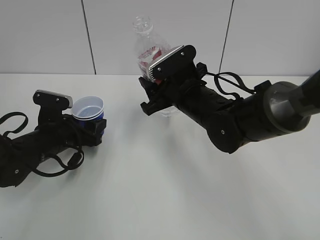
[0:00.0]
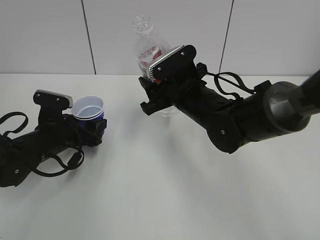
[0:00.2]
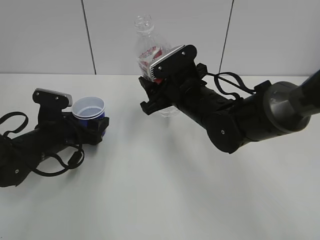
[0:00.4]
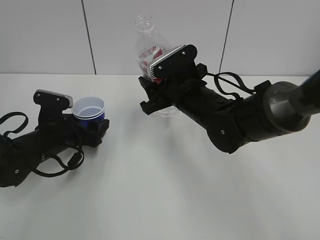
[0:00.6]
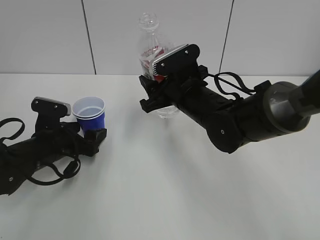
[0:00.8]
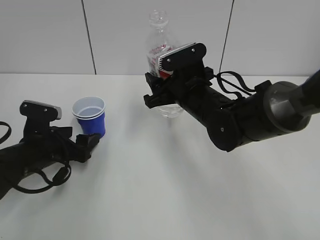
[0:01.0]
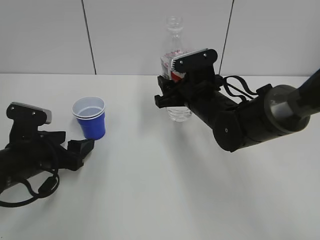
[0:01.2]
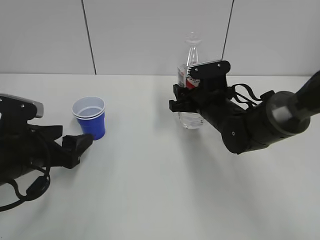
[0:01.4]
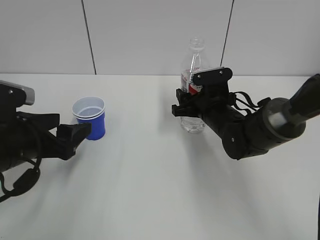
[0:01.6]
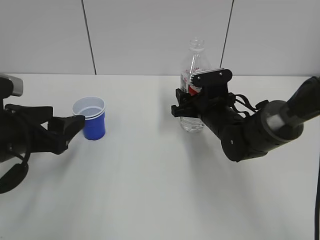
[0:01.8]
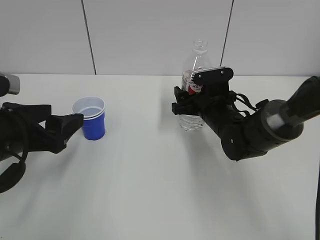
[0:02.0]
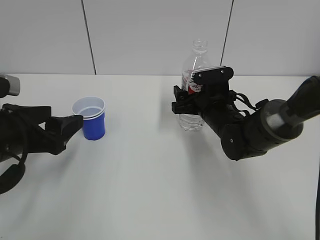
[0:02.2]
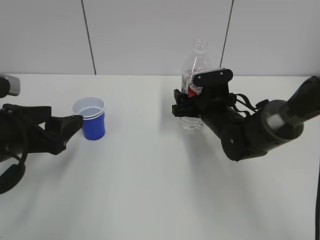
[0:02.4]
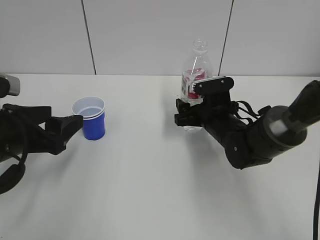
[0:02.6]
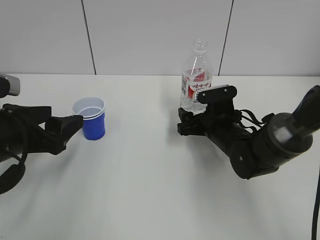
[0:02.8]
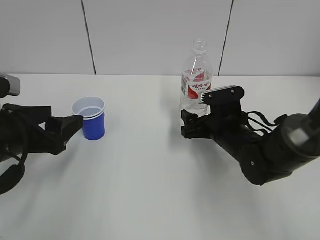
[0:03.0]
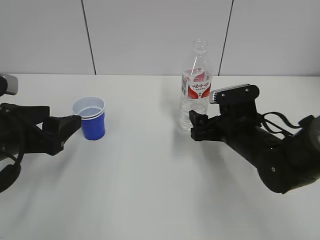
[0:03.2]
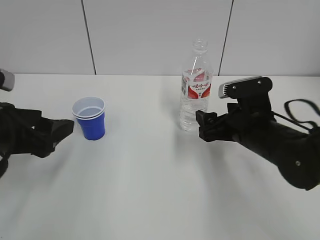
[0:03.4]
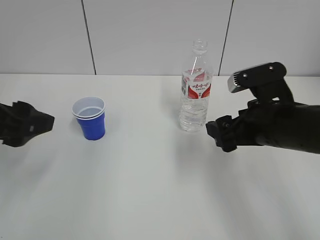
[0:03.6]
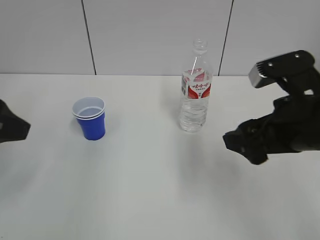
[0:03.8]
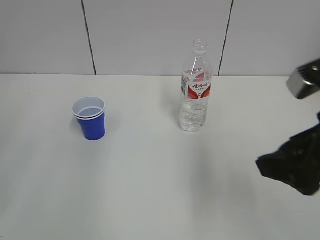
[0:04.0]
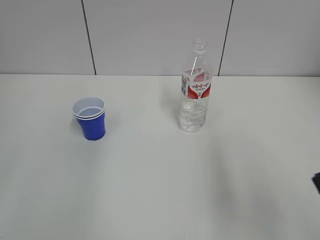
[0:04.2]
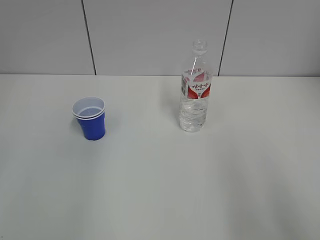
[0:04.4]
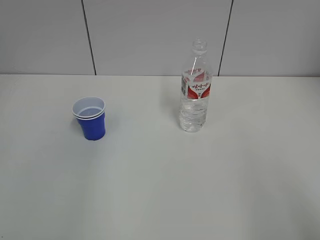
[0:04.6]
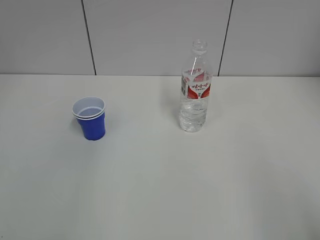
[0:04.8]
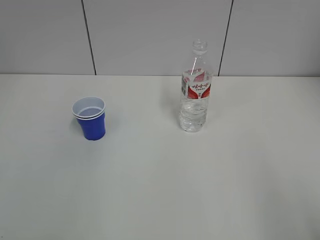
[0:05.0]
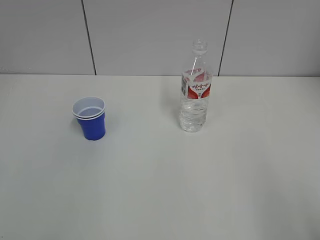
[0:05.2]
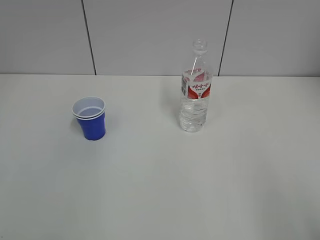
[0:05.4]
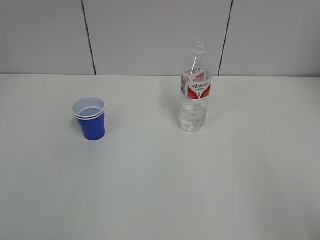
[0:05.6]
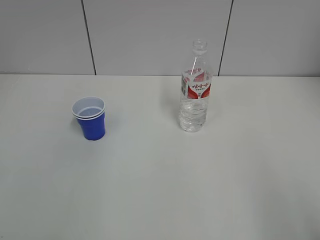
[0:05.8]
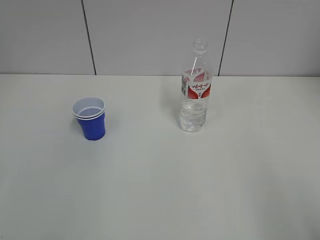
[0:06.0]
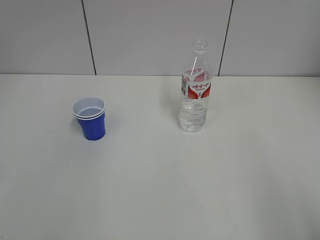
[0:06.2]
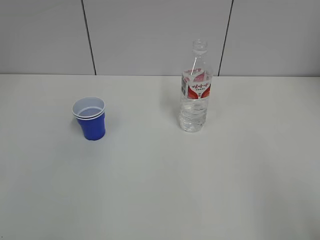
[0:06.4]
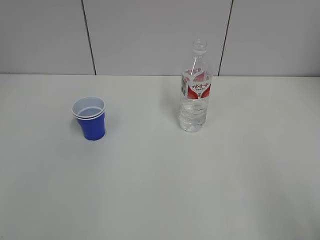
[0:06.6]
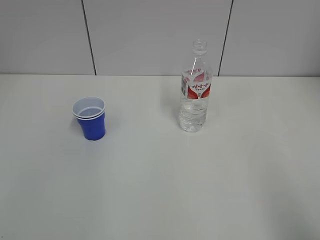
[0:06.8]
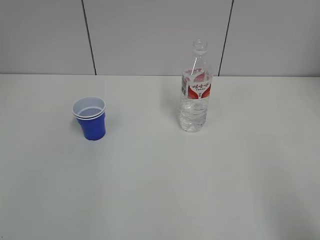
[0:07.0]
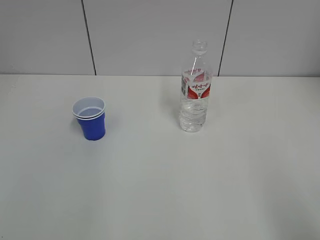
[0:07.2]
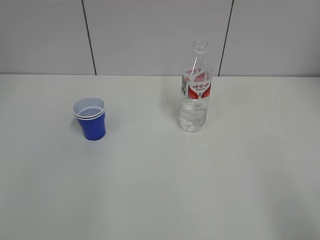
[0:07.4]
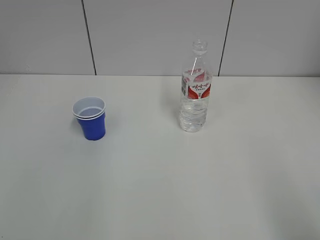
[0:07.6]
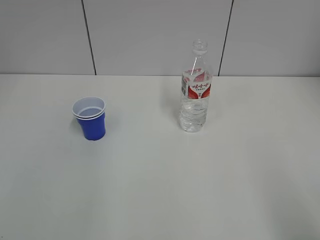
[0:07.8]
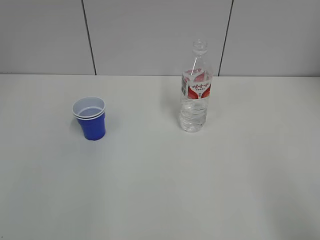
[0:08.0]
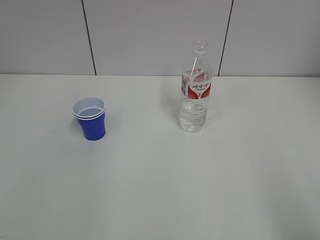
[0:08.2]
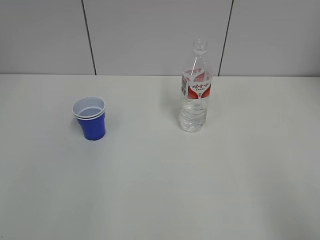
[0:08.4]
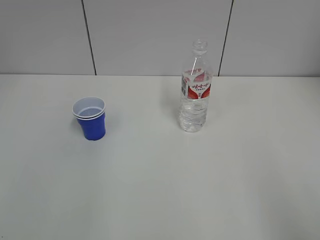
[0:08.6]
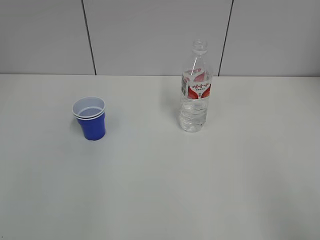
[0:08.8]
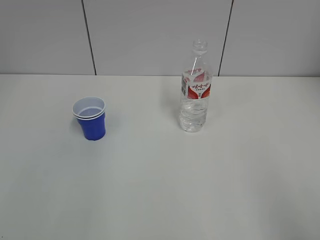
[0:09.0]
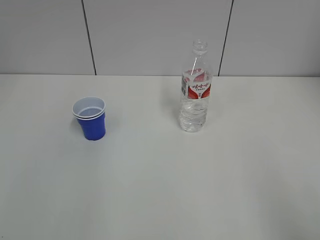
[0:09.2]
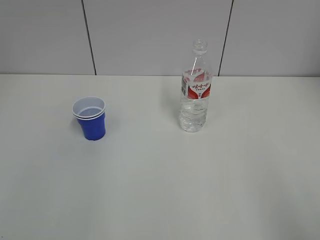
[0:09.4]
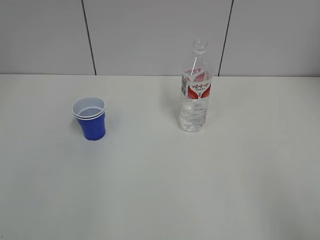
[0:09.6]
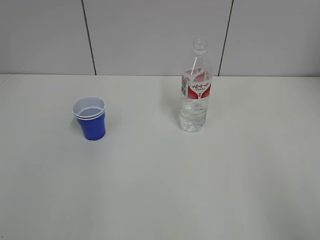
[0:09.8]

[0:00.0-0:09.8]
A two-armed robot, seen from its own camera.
Step, 0:00.8 to 0:01.4: Collect water with the right hand.
Step, 0:01.6 to 0:02.2: Place the water bottle with the right hand.
0:00.0 to 0:01.4: The right gripper goes approximately 5 cm to the right. The left gripper heads backward and upward, covering some 10 cm, and opens up.
0:01.4 to 0:02.8: The right gripper shifts by some 5 cm, and opens its fingers, while the left gripper is displaced upward by approximately 5 cm.
0:02.8 to 0:04.2: The right gripper goes some 35 cm backward, upward and to the right, while the left gripper travels upward and backward by some 20 cm.
0:07.0 to 0:08.4: Both grippers stay put.
0:08.4 to 0:09.8: Both grippers stay put.

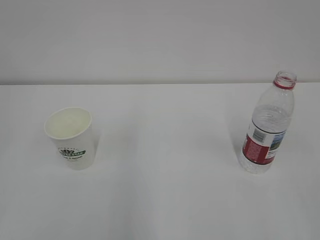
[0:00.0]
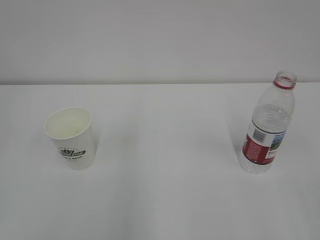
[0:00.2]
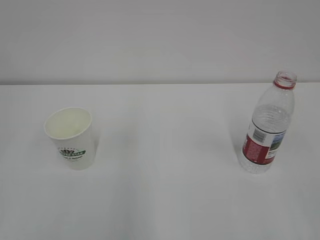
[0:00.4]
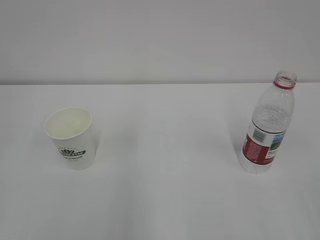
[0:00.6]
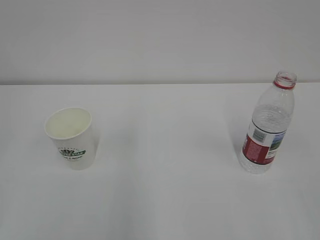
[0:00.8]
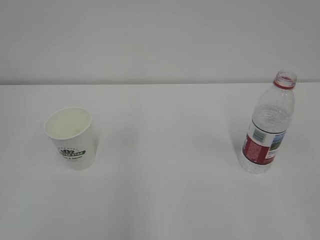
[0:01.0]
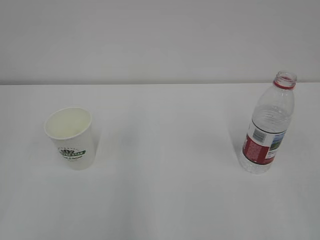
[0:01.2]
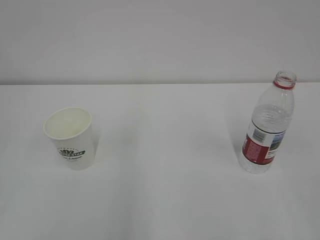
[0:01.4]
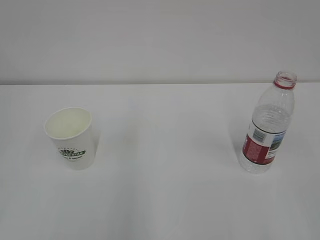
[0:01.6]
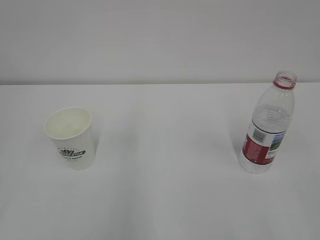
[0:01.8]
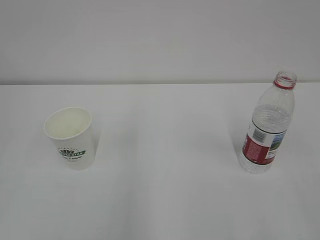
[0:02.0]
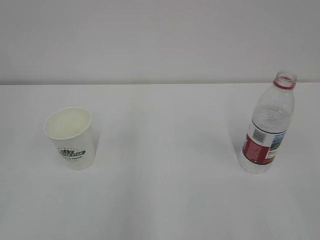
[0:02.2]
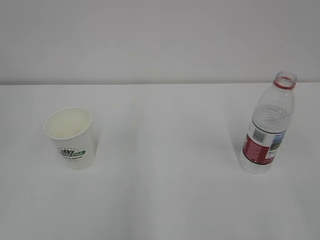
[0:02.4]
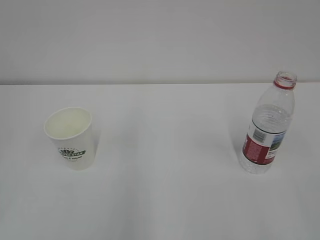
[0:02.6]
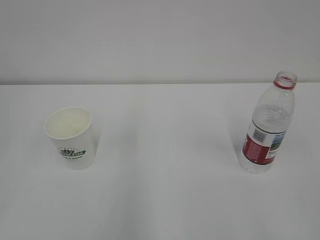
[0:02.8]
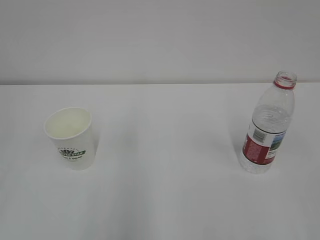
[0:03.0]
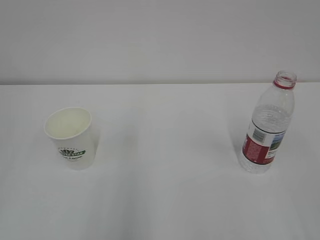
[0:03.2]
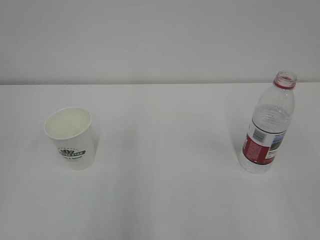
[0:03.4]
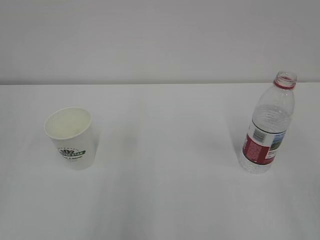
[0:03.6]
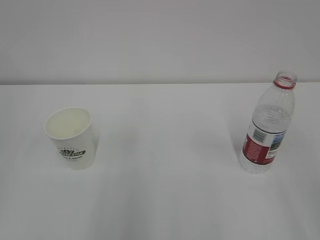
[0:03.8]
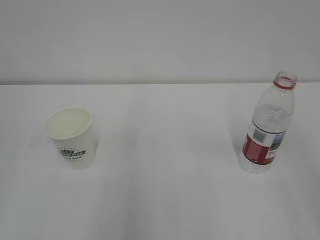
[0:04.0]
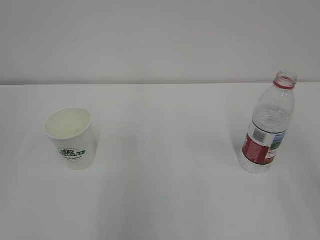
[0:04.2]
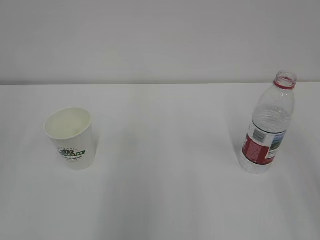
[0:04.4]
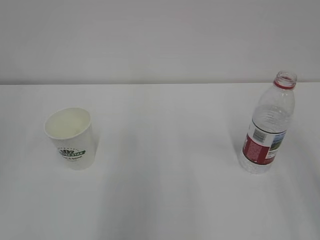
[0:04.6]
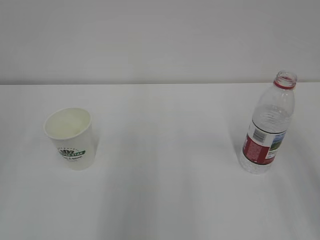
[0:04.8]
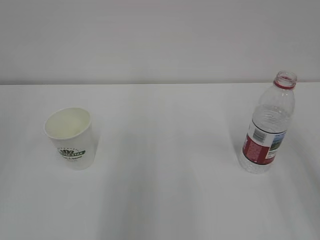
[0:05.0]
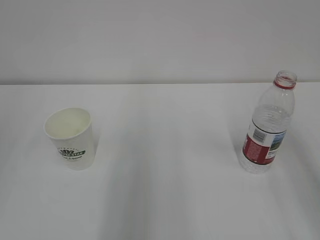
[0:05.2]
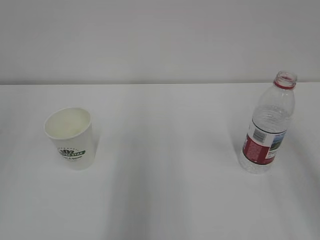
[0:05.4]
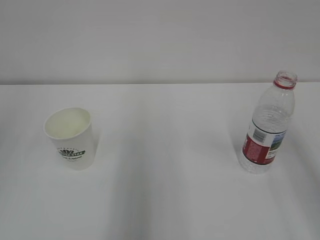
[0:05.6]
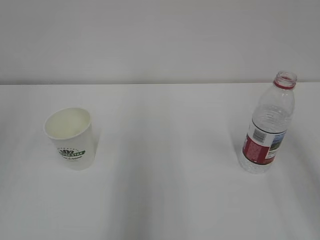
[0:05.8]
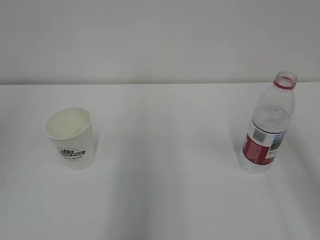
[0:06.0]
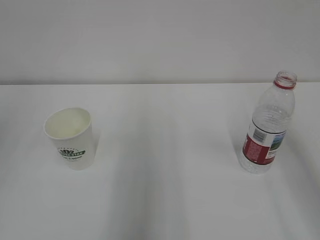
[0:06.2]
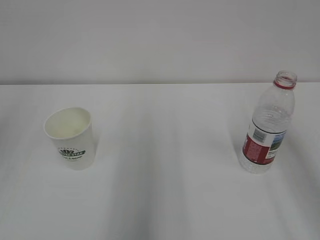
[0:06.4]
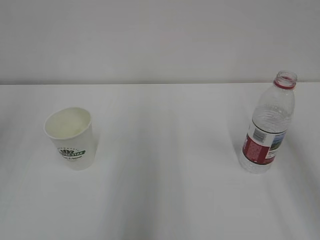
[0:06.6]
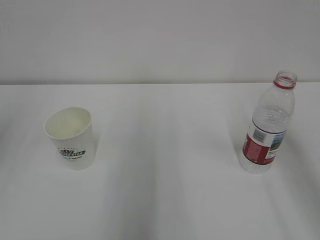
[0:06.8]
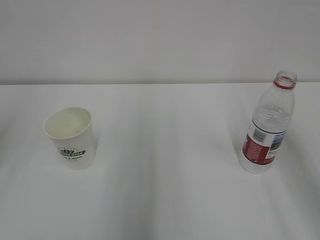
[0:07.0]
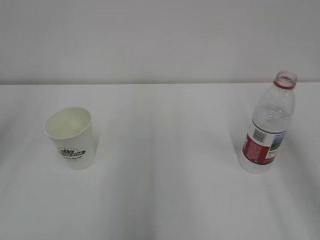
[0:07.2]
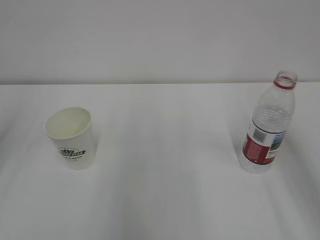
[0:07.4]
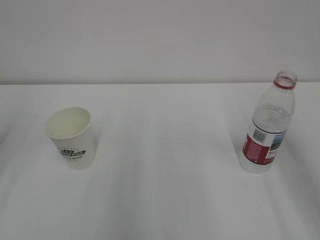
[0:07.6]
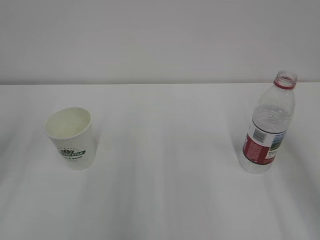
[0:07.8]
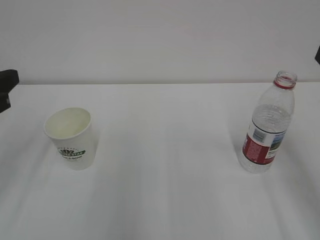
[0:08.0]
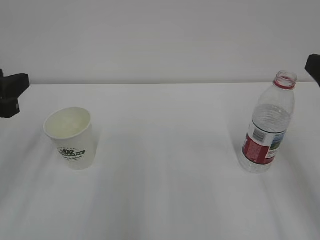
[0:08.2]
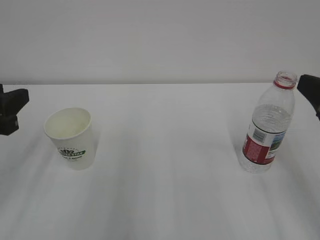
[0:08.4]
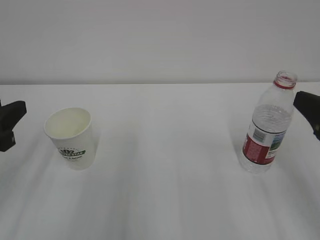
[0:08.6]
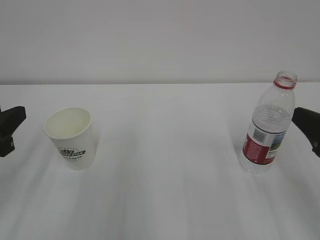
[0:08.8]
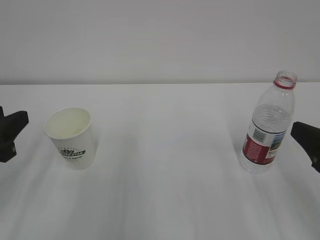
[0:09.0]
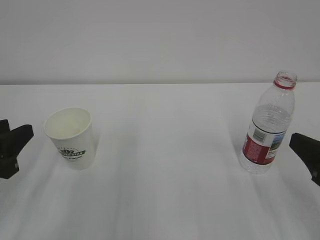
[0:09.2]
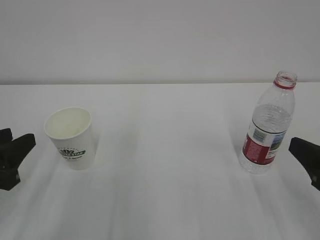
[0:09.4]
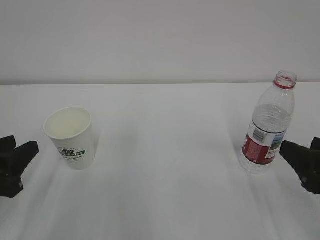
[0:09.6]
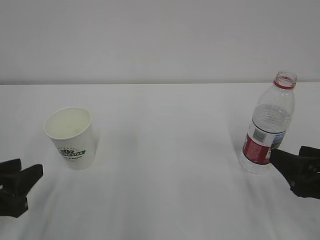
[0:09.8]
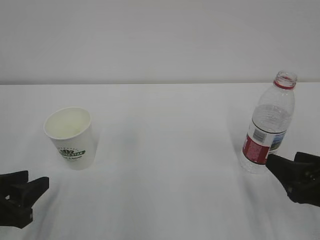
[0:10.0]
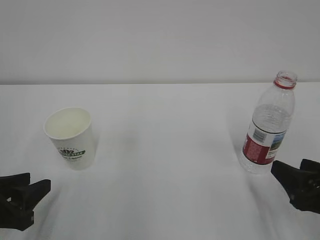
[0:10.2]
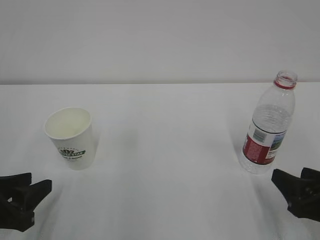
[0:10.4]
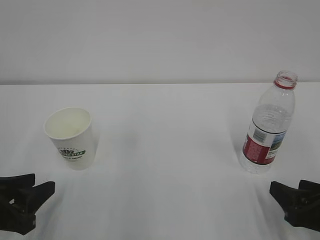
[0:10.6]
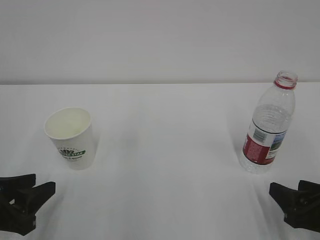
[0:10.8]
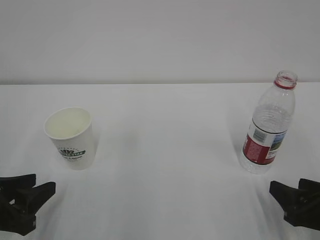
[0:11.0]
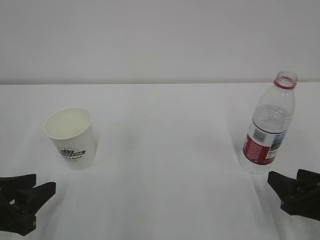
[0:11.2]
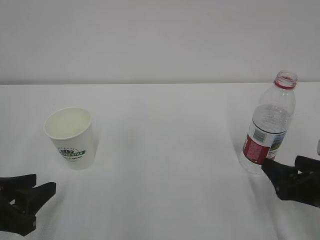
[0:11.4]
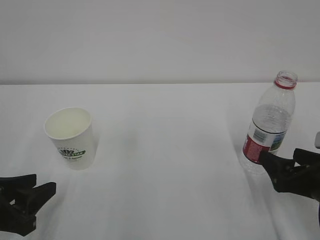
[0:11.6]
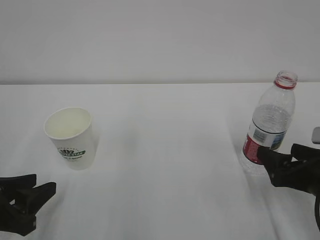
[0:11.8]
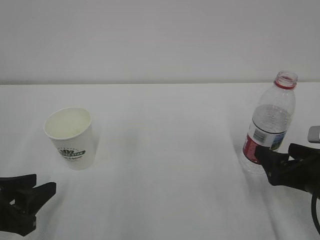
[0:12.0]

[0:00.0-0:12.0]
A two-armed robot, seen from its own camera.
0:07.6 to 0:09.0: Both grippers travel together downward, approximately 10 cm.
0:09.0 to 0:10.4: The grippers both shift downward by about 10 cm.
0:10.4 to 0:12.0: The right gripper heads forward, covering about 5 cm, and opens up.

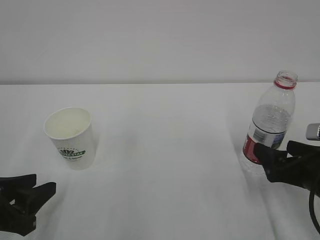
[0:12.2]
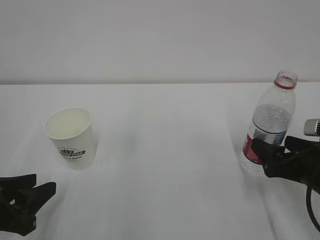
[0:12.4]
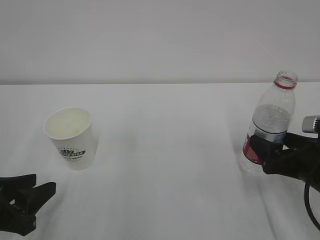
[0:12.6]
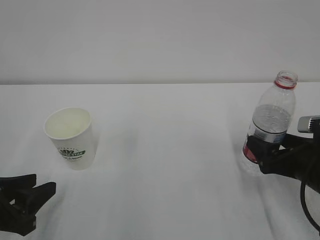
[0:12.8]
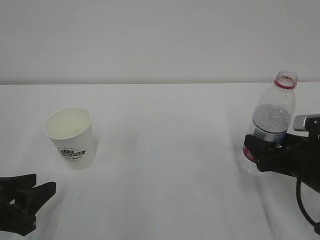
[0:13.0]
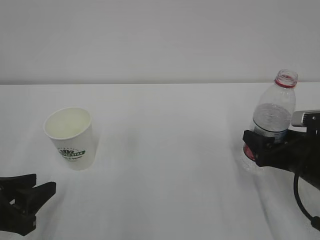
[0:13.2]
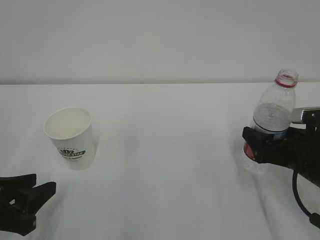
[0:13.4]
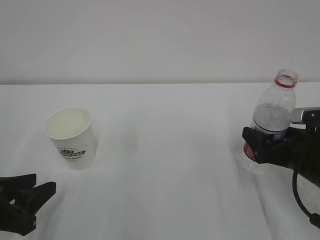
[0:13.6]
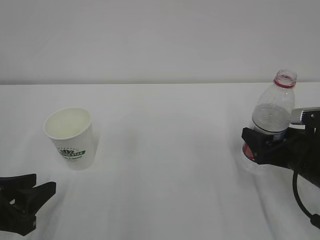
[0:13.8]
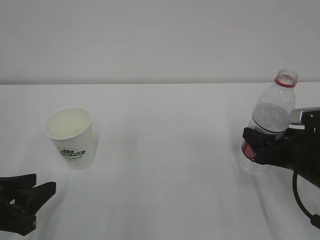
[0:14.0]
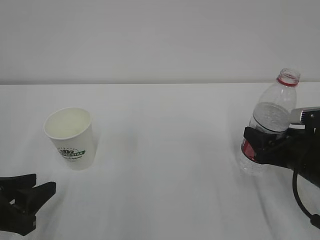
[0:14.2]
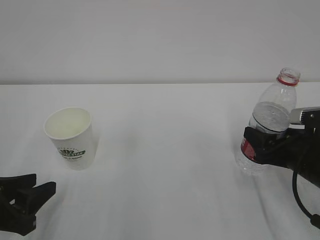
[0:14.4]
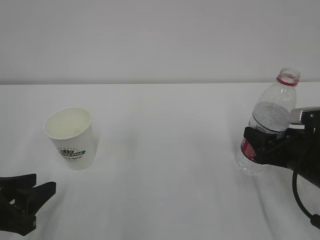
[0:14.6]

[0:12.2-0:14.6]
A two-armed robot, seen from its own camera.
0:12.2 to 0:13.4: The grippers stay close to where they were, moving slightly.
0:13.4 to 0:14.6: The right gripper closes up.
